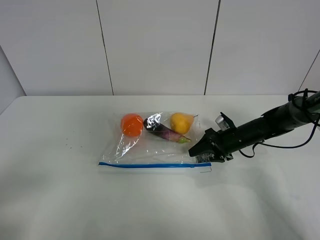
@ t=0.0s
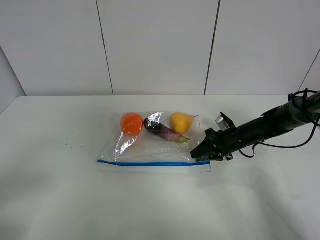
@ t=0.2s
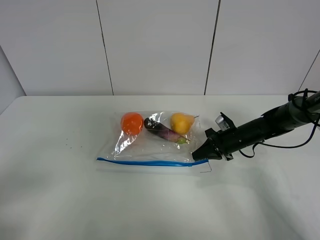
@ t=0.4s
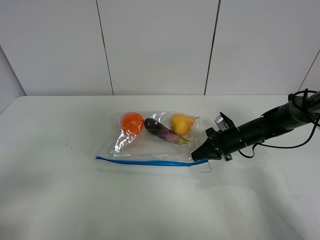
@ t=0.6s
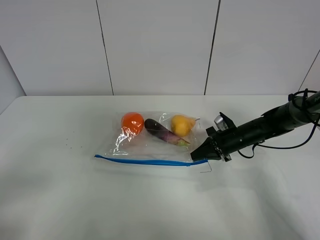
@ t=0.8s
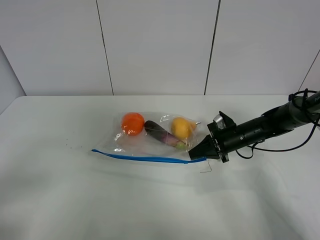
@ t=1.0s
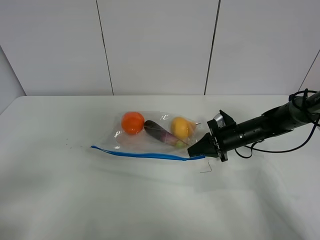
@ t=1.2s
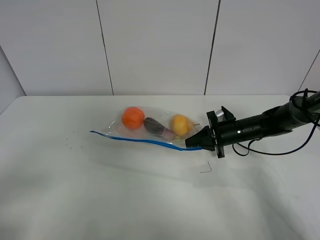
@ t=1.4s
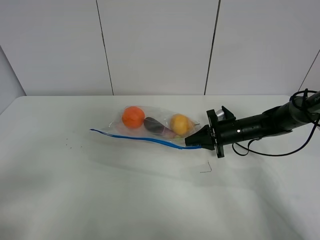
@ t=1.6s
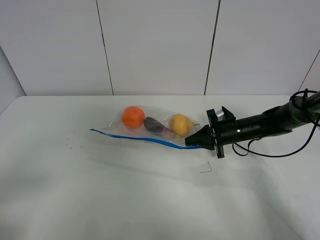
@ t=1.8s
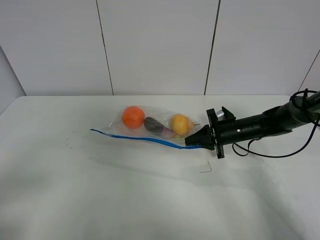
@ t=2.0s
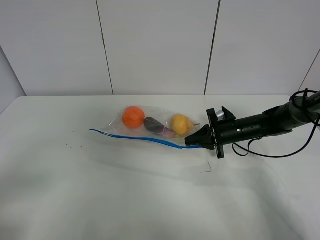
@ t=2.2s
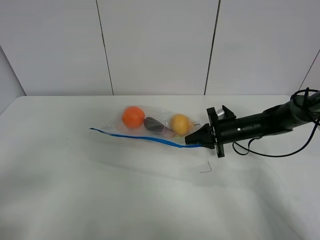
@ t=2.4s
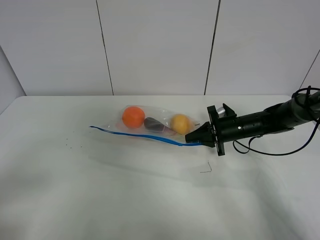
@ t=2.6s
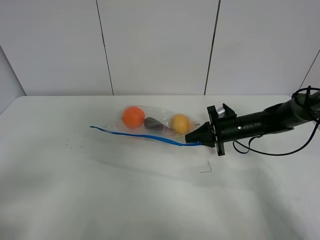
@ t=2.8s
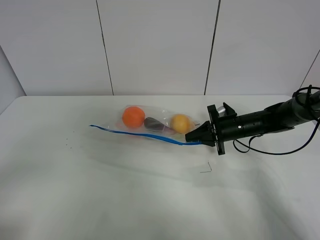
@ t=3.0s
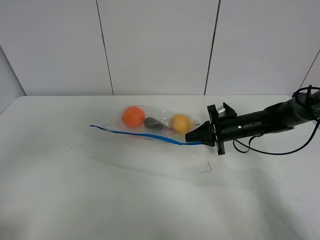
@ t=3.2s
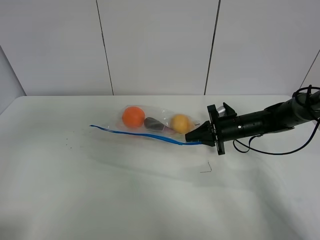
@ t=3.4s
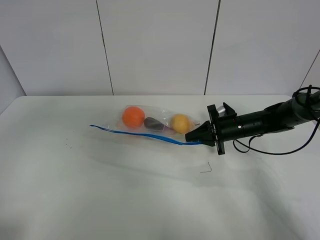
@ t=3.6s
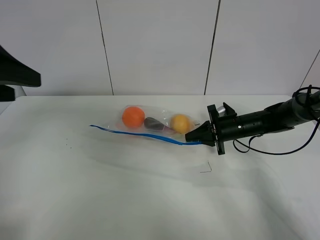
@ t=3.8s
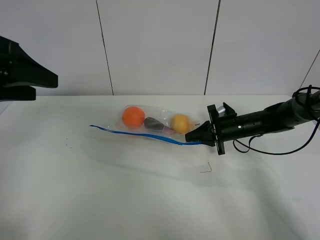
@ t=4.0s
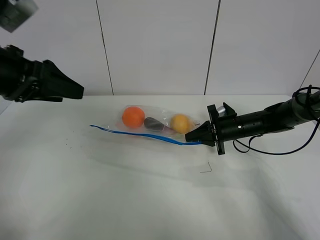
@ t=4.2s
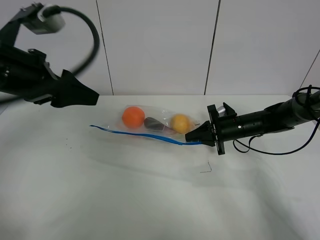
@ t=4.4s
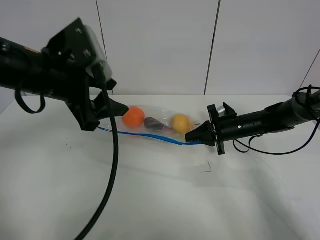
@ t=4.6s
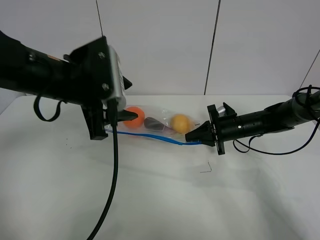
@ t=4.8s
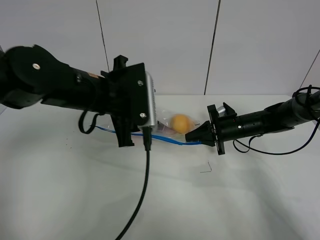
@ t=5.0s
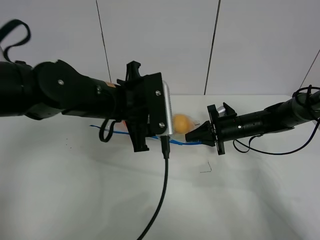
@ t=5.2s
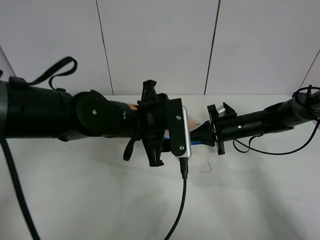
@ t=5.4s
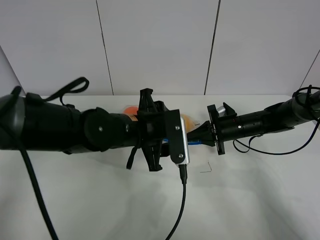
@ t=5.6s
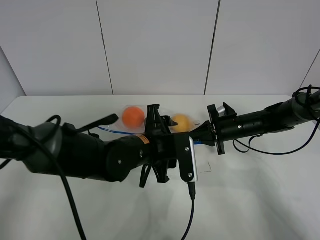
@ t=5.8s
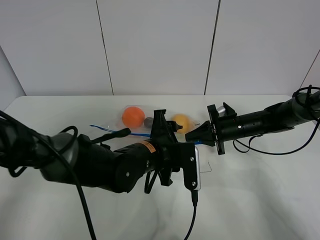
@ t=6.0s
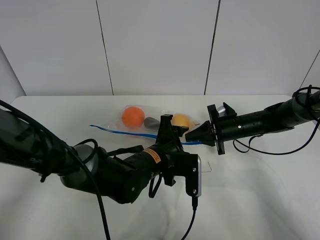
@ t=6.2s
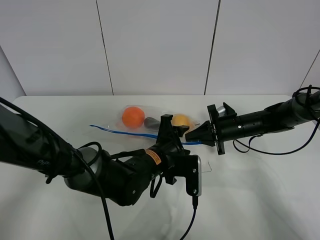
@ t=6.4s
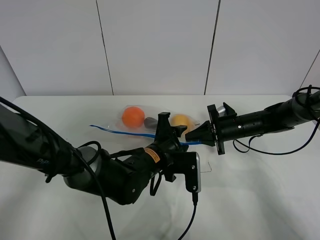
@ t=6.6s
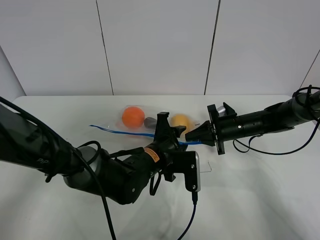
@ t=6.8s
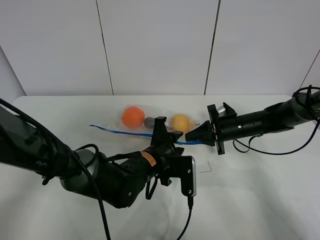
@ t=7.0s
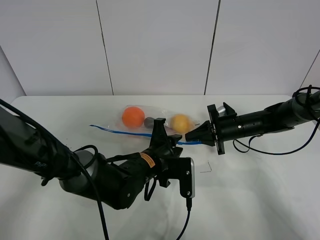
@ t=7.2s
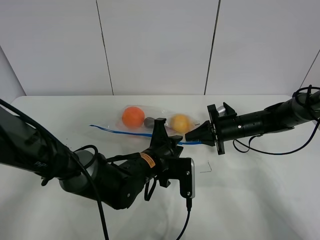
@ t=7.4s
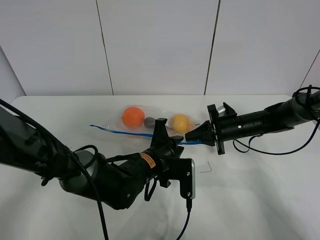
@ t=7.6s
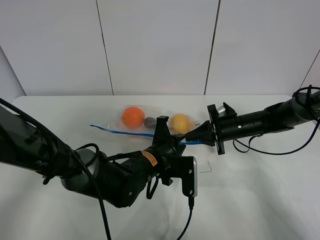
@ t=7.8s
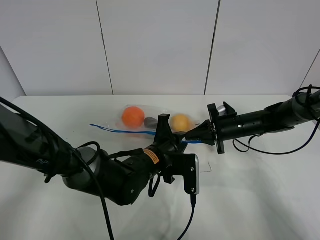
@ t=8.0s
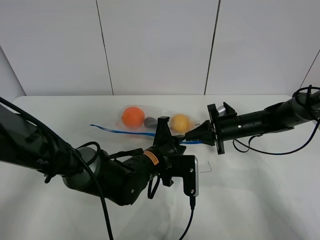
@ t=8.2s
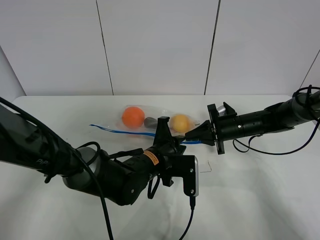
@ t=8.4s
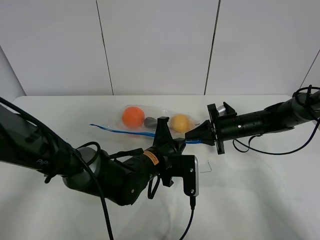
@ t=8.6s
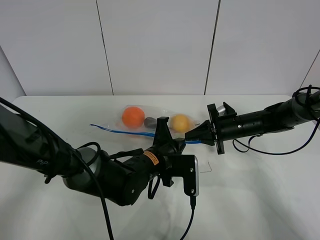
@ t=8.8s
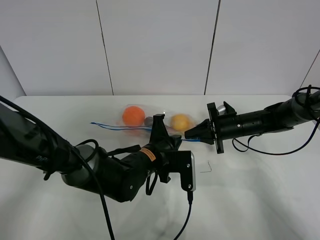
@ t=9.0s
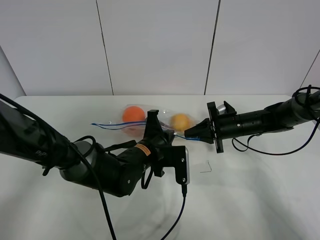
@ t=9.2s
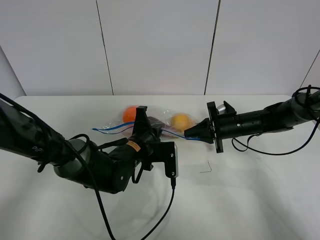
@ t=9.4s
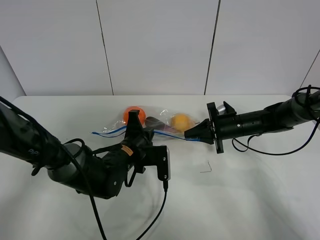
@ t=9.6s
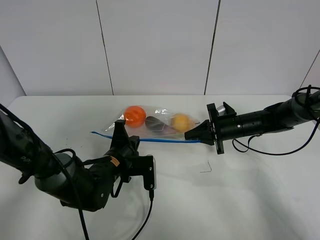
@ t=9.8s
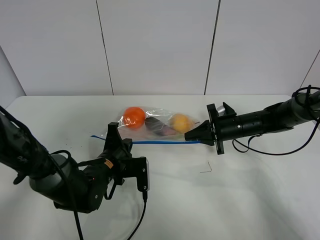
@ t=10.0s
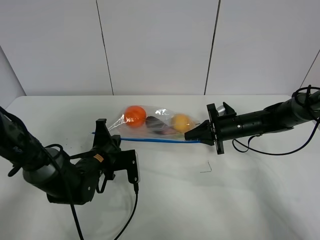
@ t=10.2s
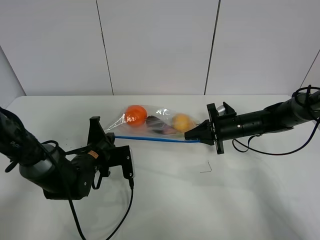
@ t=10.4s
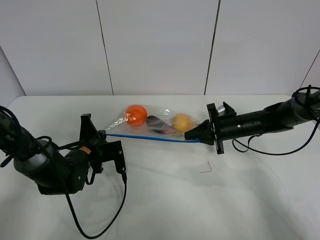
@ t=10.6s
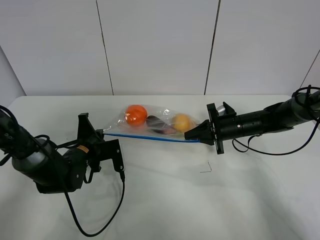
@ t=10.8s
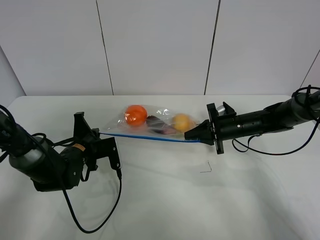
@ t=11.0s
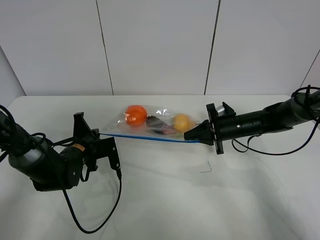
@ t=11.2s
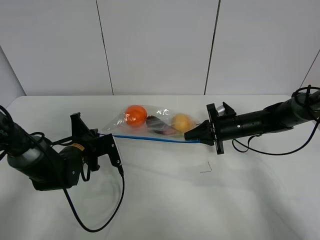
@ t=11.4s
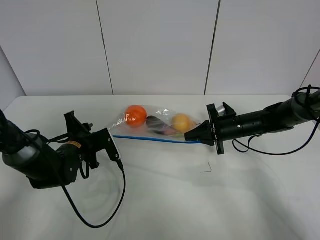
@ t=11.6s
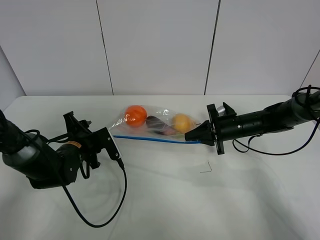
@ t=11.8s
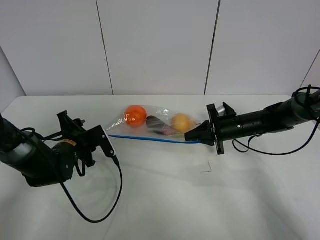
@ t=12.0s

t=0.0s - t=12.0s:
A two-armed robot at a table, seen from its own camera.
Step, t=0.6s - t=1.6s: Lift the fruit bag with your right gripper.
Step, t=1.8s - t=11.6s: Pull the fruit bag with left gripper.
t=0.0s - t=1.6s: The right gripper closes.
t=1.6s - t=3.0s: The grippers make only small movements.
t=3.0s - t=4.4s: The left gripper goes some 25 cm forward and to the right.
t=4.4s - t=6.0s: The left gripper shifts roughly 25 cm to the right and downward.
t=6.0s - t=7.6s: The left gripper closes.
t=7.6s - t=9.0s: The left gripper closes.
t=9.0s - t=10.4s: The left gripper heads to the left, covering some 15 cm.
t=10.4s - t=12.0s: The left gripper heads to the left, covering some 5 cm, and opens up.

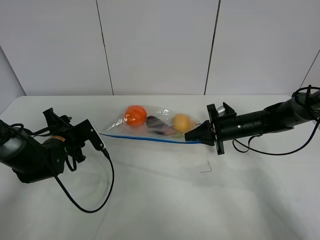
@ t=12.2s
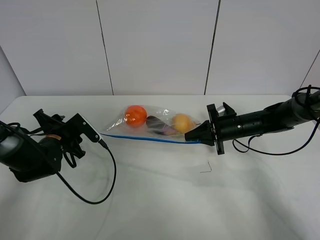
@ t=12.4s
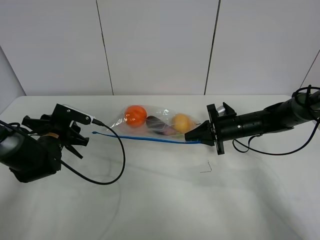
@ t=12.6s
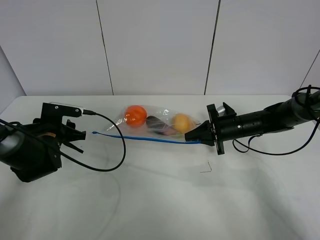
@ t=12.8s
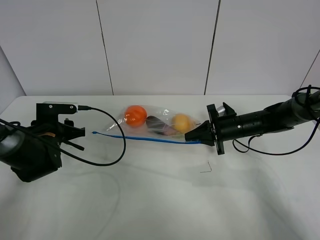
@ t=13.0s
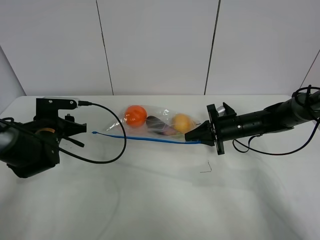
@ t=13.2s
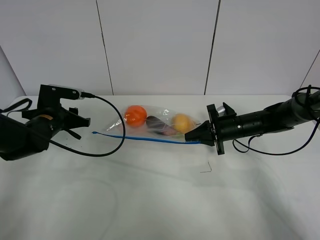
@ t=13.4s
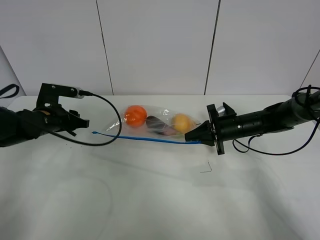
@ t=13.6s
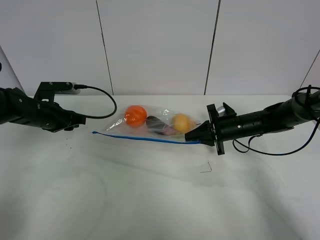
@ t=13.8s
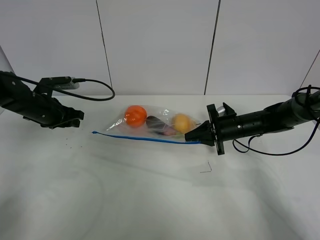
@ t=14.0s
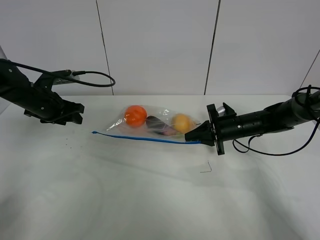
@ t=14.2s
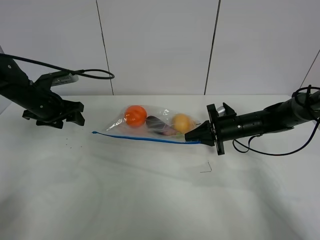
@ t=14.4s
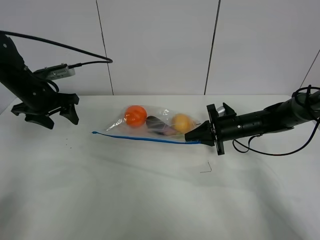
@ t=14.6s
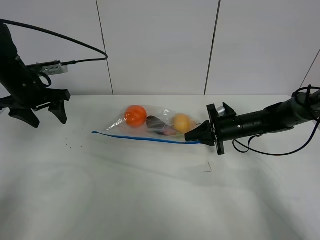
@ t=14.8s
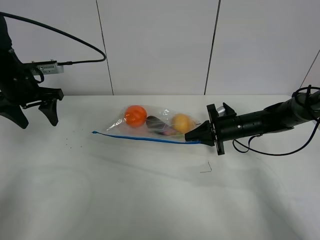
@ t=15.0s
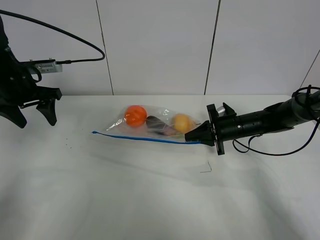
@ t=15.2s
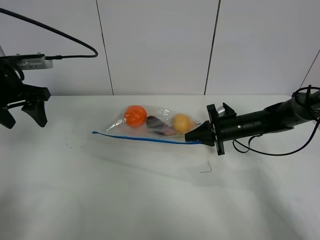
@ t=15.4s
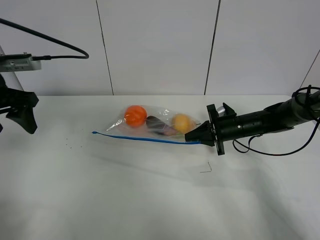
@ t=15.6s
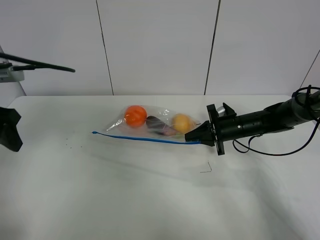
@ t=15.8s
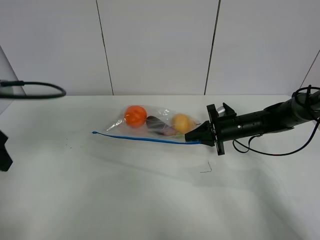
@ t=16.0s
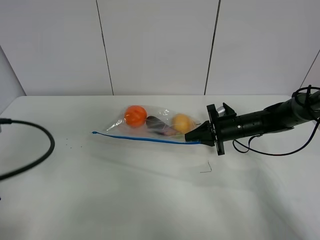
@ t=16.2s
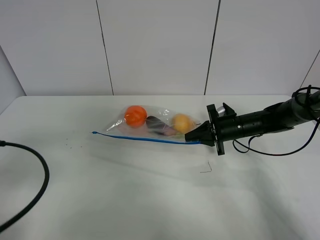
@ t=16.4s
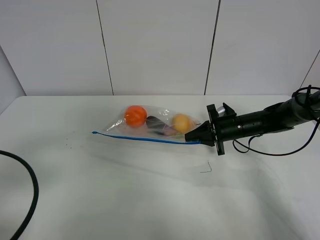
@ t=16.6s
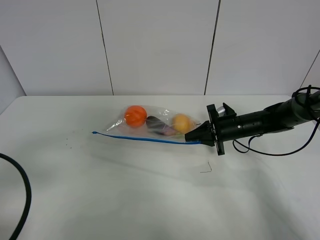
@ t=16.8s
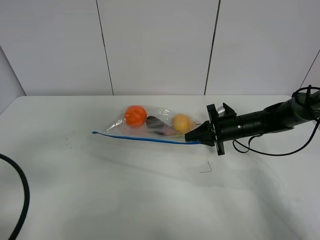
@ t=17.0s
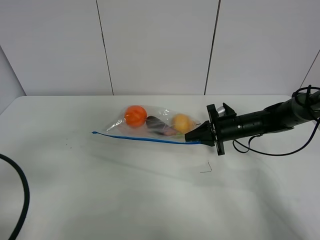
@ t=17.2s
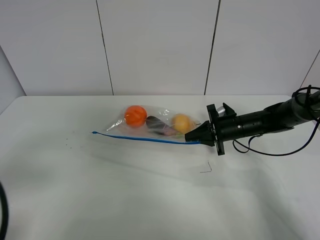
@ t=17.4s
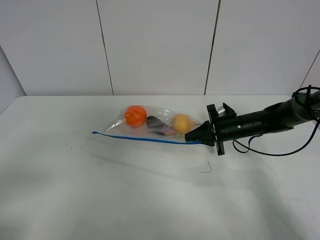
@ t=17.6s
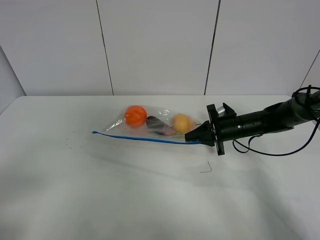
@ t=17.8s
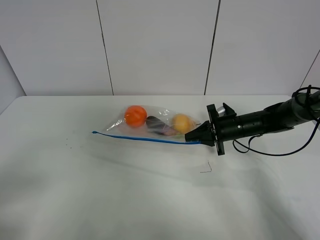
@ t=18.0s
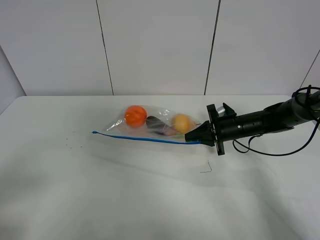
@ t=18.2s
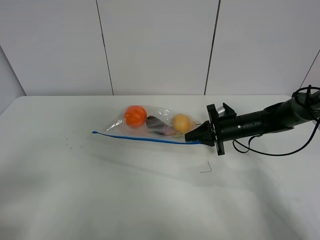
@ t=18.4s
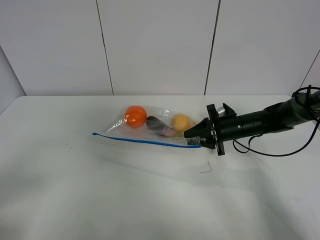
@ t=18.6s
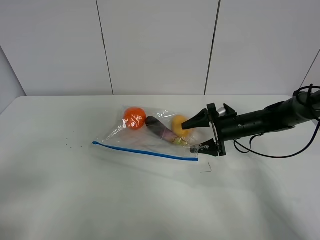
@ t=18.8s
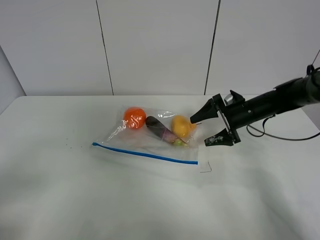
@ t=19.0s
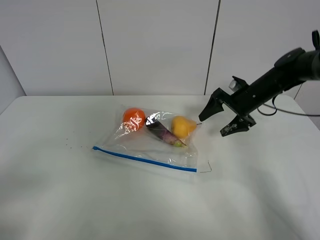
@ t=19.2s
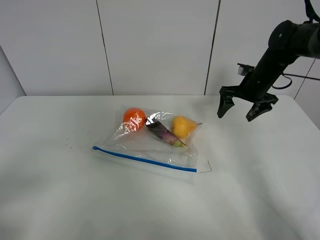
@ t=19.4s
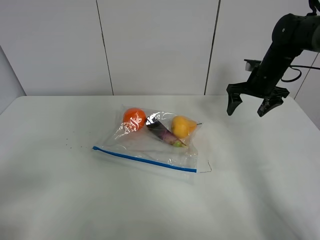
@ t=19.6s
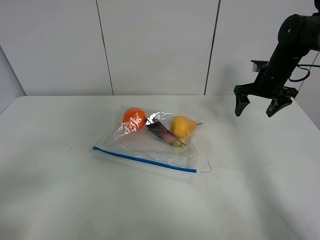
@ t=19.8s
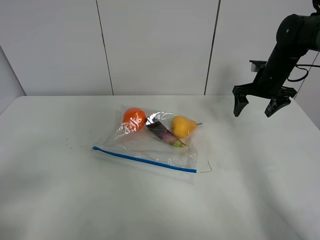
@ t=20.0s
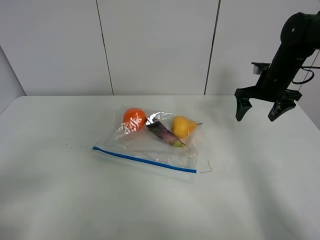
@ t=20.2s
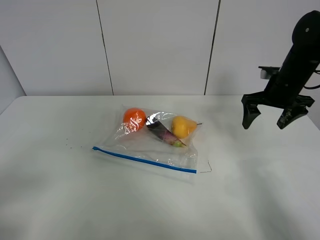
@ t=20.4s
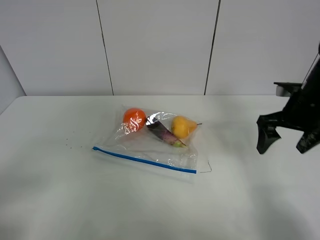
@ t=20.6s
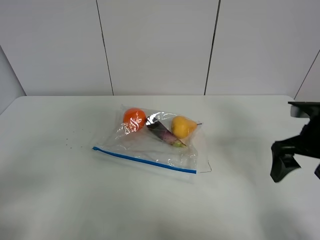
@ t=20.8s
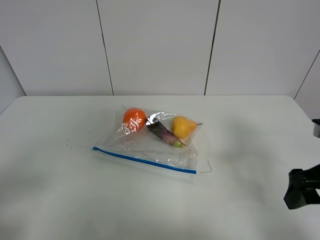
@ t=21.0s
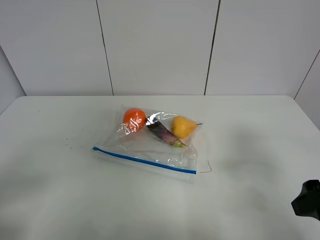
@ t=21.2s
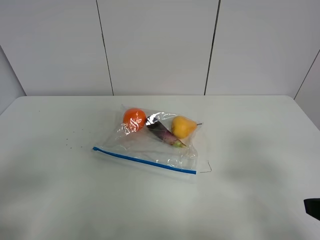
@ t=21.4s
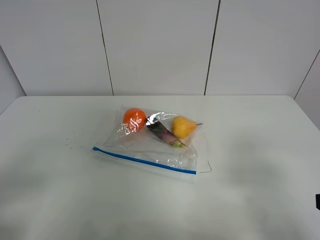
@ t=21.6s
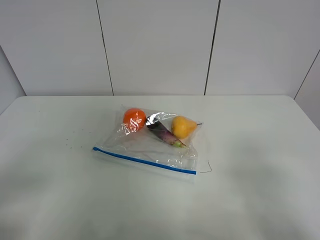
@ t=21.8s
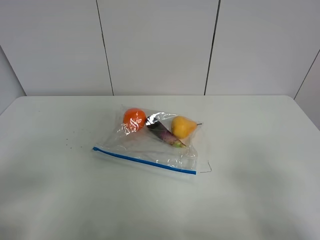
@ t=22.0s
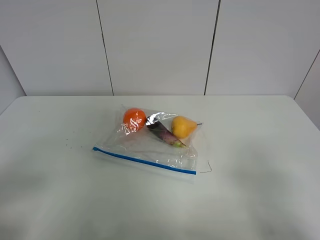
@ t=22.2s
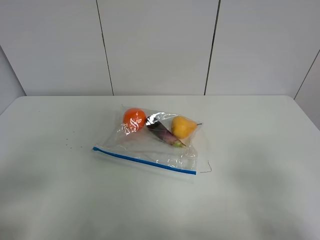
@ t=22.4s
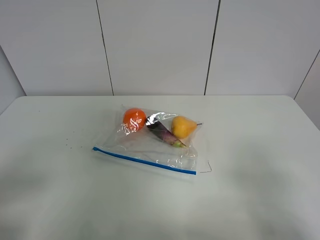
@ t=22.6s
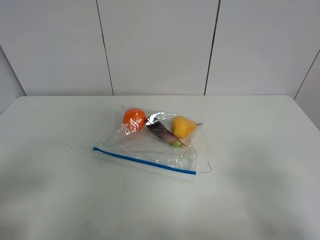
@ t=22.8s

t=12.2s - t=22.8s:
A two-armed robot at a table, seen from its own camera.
t=12.2s - t=13.8s: The left gripper moves upward, roughly 5 cm.
t=13.8s - t=15.2s: The left gripper shifts approximately 10 cm upward, and opens up.
t=15.2s - t=16.8s: The left gripper goes roughly 25 cm backward.
t=16.8s - t=18.2s: The left gripper travels backward by roughly 10 cm.
t=18.2s - t=19.8s: The right gripper moves upward, to the right and forward, about 15 cm, and opens up.
t=19.8s - t=21.2s: The right gripper moves backward, some 30 cm.
t=21.2s - t=22.8s: The right gripper moves backward, roughly 10 cm.
